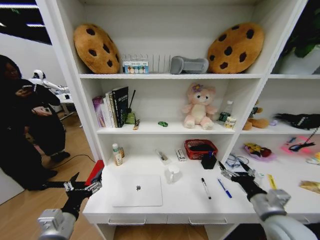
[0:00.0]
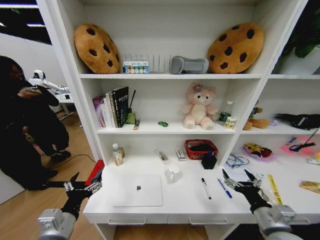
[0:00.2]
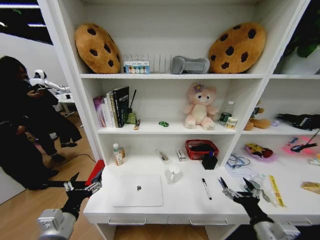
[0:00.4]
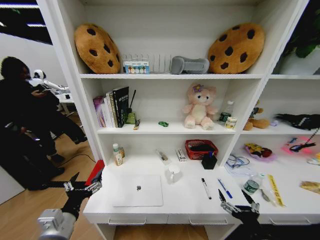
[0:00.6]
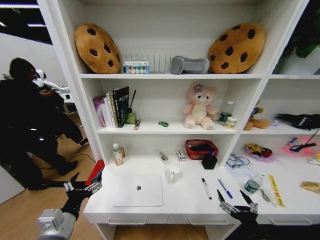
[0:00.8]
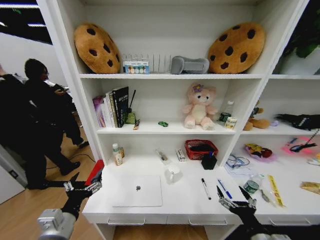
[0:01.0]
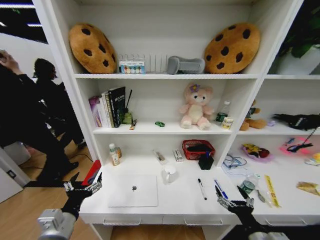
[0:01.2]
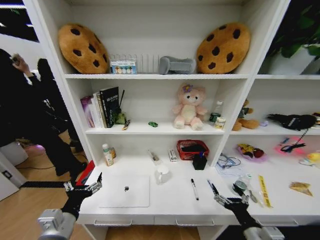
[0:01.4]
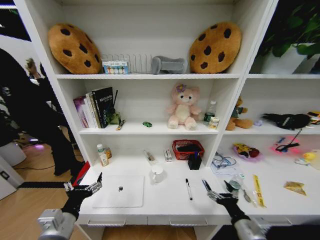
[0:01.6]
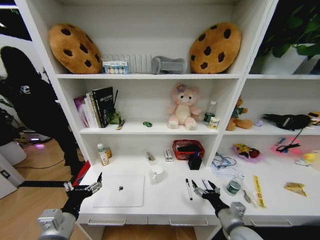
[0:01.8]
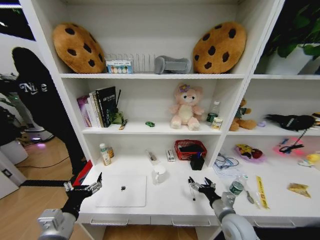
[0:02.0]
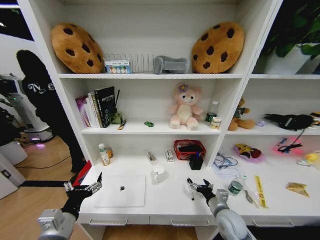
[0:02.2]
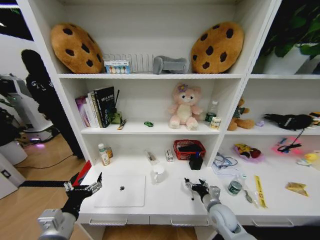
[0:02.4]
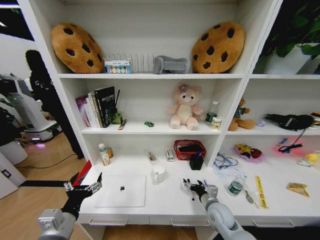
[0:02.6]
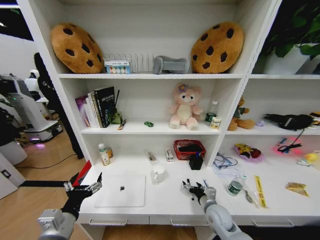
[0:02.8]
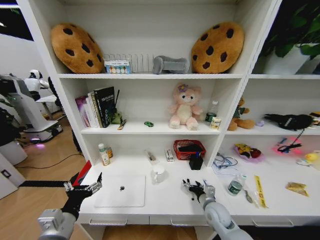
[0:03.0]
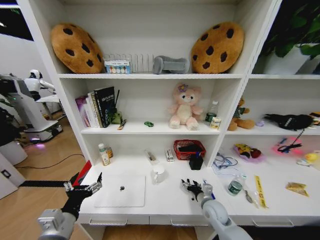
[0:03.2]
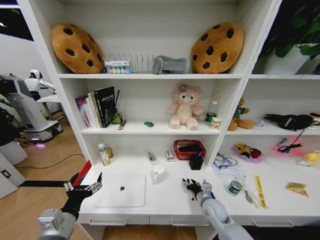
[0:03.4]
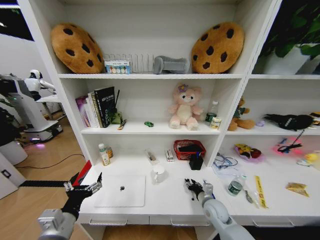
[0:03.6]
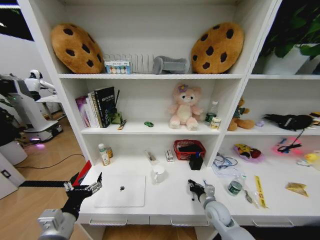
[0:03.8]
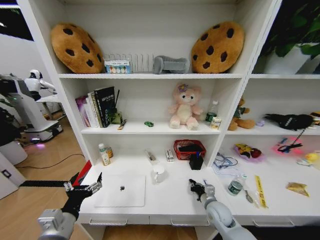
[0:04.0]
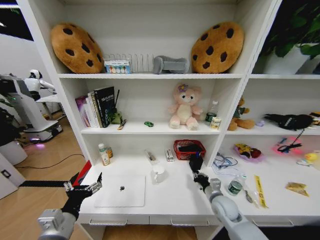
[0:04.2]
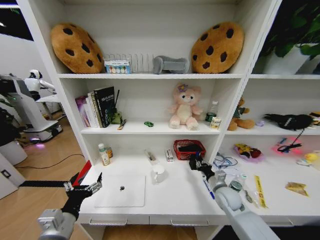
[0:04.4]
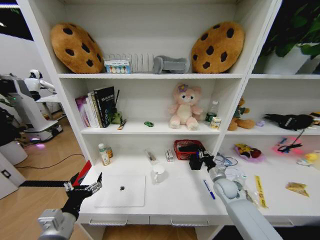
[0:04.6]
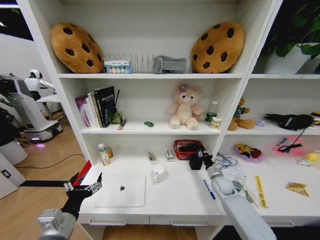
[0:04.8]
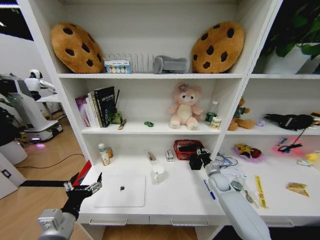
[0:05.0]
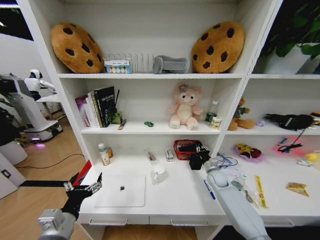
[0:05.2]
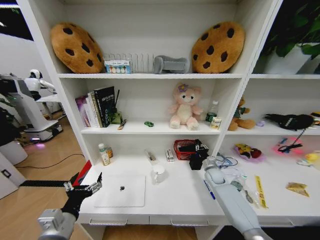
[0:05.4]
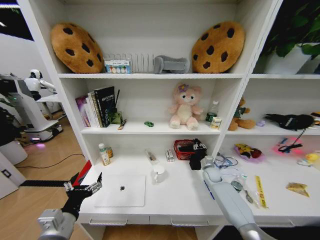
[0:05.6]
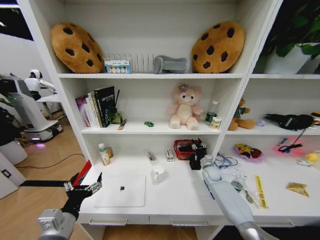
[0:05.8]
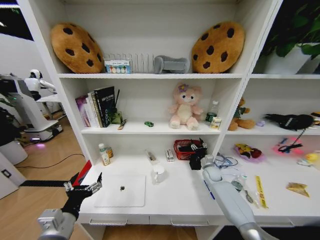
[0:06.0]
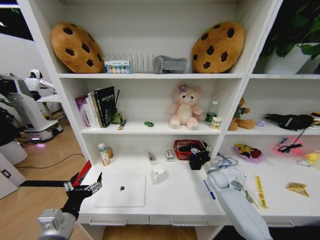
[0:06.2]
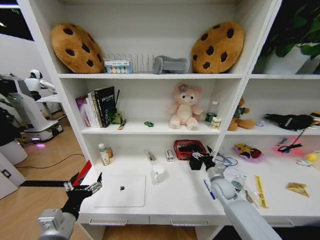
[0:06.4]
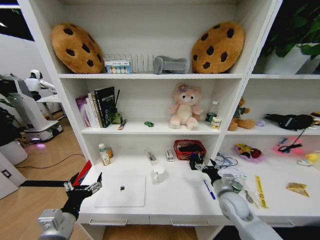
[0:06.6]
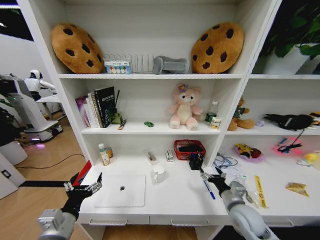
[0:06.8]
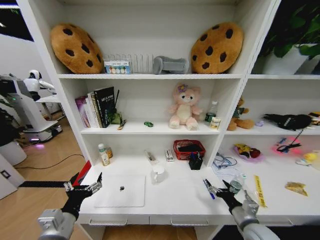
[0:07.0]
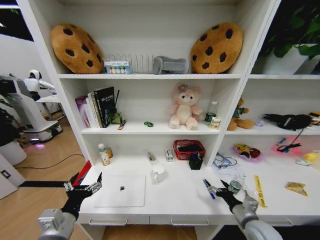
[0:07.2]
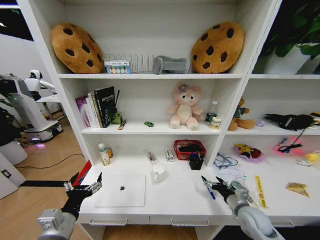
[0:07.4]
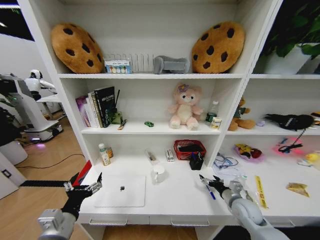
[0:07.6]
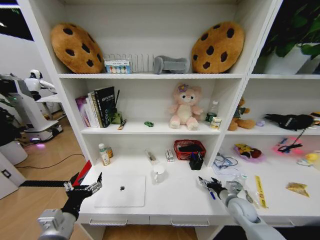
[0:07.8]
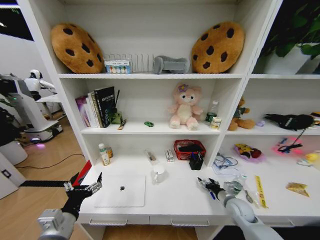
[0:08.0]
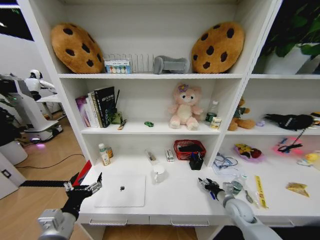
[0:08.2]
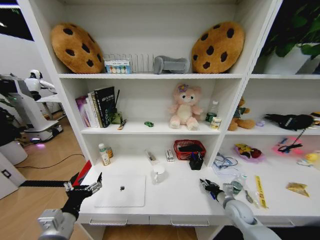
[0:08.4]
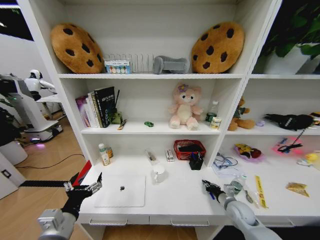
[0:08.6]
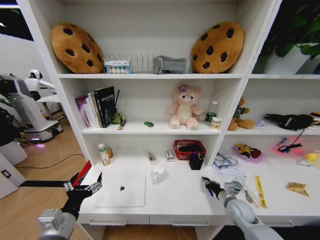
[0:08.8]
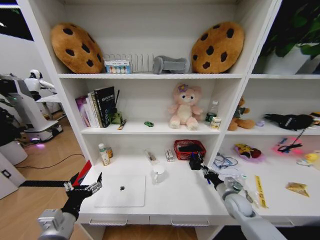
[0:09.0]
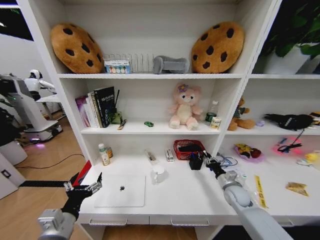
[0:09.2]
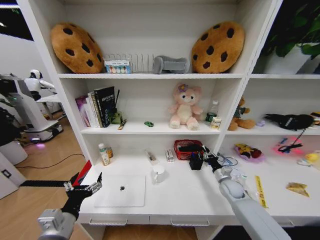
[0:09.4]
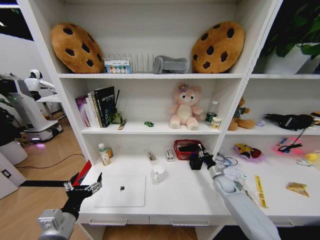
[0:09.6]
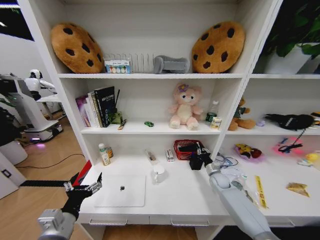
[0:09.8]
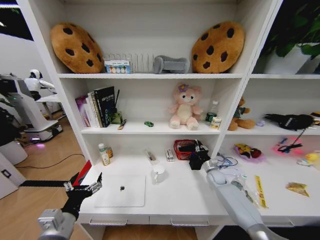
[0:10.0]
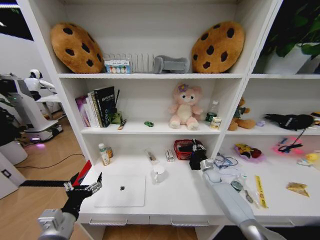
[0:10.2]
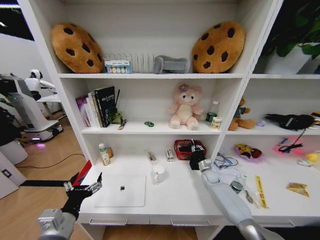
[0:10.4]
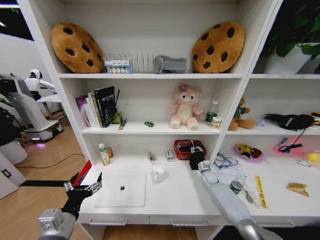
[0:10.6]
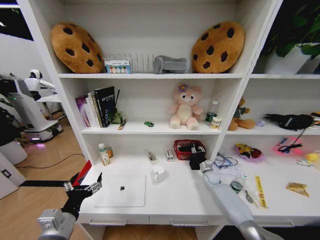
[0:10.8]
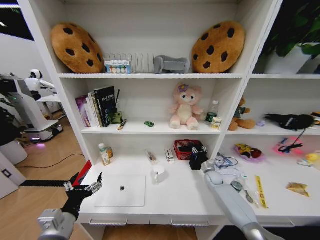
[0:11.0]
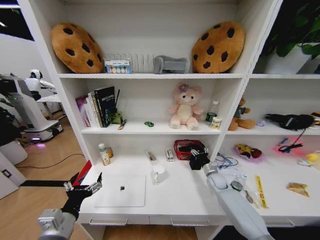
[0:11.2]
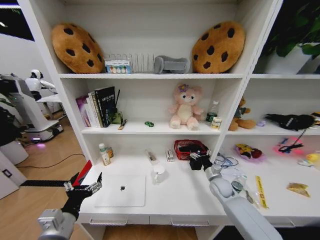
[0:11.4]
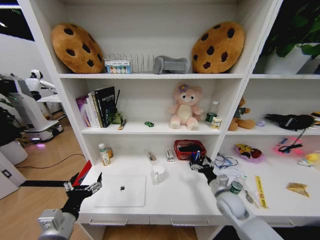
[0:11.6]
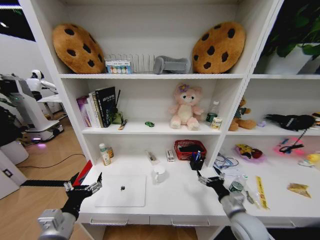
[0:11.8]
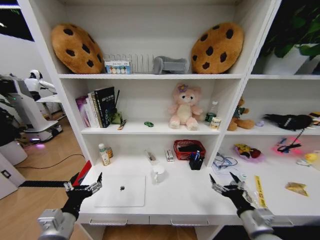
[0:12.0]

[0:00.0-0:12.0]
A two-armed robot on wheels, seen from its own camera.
Task of the whole recording: Organize the objects on the table.
0:00.0 to 0:01.6: The right gripper moves downward and backward, about 10 cm.
0:01.6 to 0:03.0: The right gripper is displaced forward and downward by about 15 cm.
0:03.0 to 0:04.4: The right gripper shifts about 10 cm to the right and forward, and closes its fingers.
0:04.4 to 0:06.0: The right gripper shifts roughly 15 cm forward, and opens its fingers.
0:06.0 to 0:07.6: The right gripper shifts approximately 20 cm backward, and opens up.
0:07.6 to 0:09.0: The right gripper closes its fingers.
0:09.0 to 0:10.4: The right gripper is displaced forward by about 15 cm.
0:10.4 to 0:12.0: The right gripper goes roughly 35 cm backward and upward, and opens up.

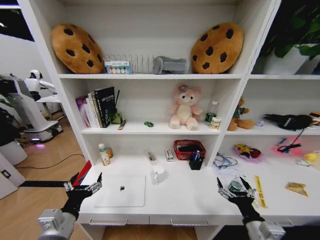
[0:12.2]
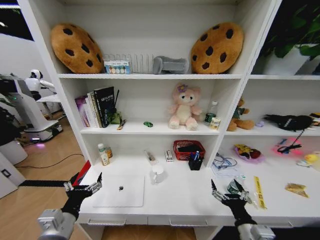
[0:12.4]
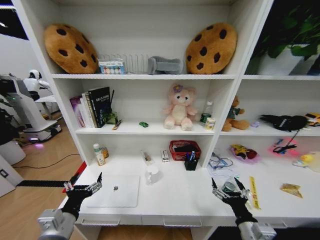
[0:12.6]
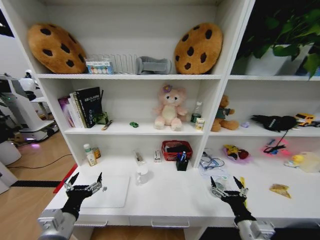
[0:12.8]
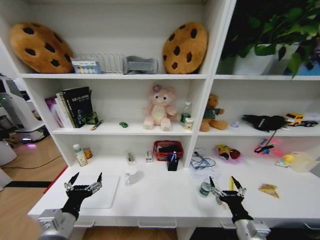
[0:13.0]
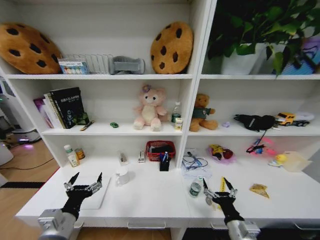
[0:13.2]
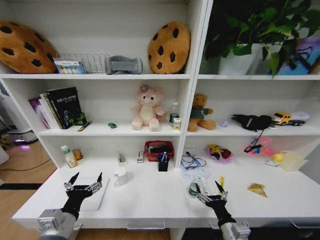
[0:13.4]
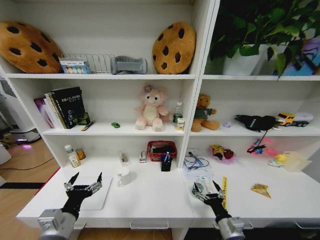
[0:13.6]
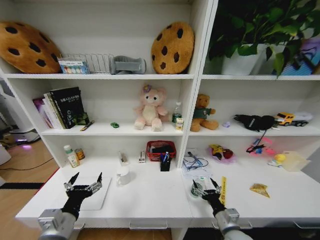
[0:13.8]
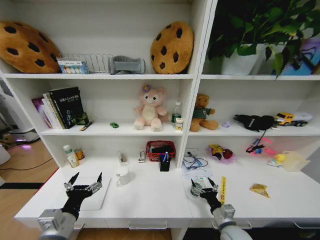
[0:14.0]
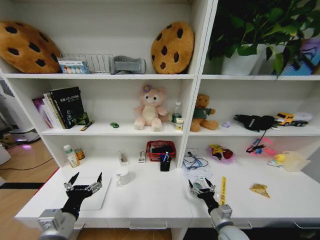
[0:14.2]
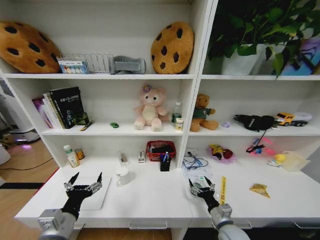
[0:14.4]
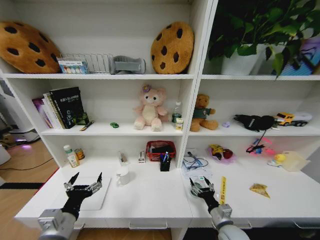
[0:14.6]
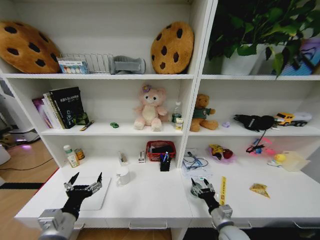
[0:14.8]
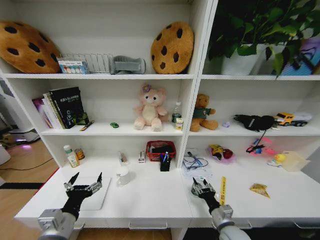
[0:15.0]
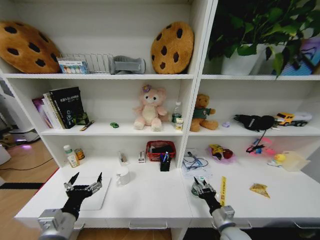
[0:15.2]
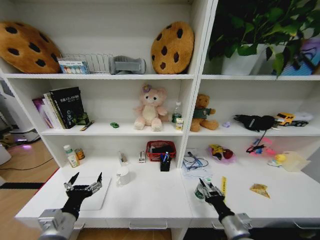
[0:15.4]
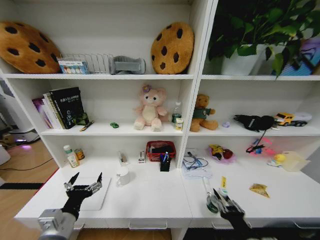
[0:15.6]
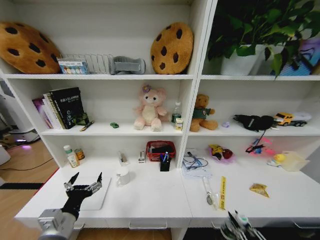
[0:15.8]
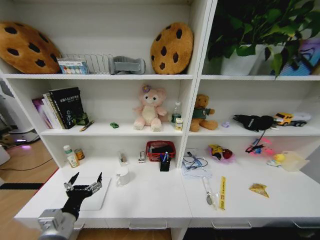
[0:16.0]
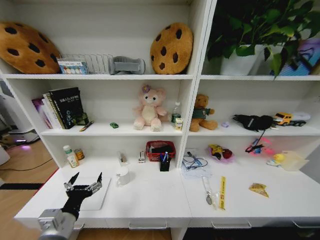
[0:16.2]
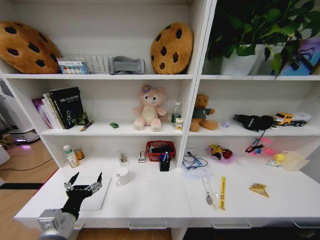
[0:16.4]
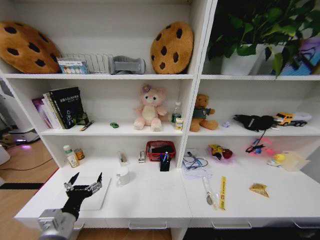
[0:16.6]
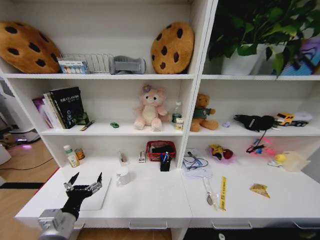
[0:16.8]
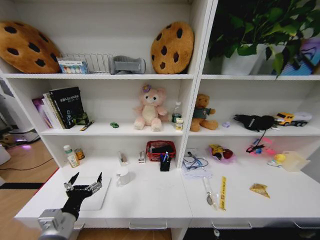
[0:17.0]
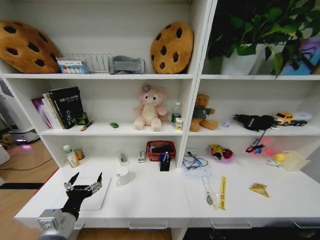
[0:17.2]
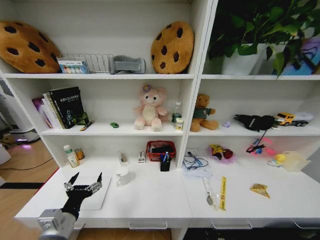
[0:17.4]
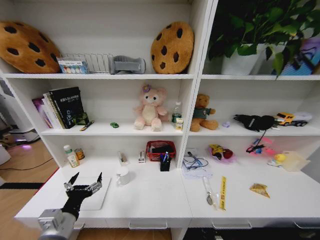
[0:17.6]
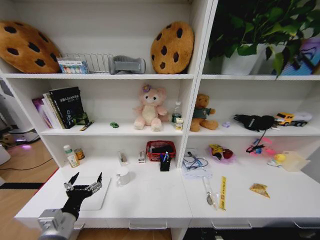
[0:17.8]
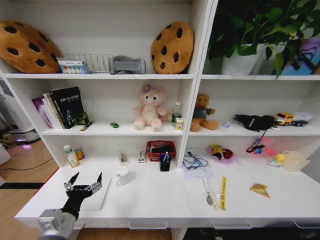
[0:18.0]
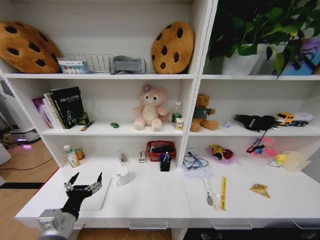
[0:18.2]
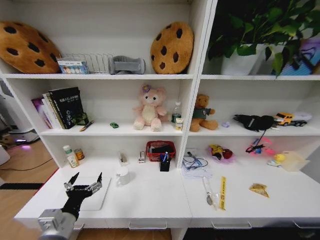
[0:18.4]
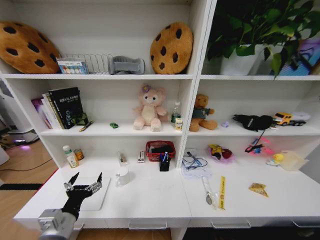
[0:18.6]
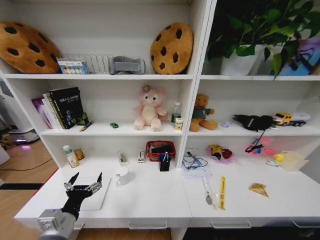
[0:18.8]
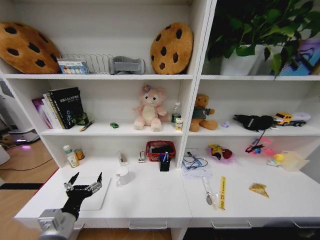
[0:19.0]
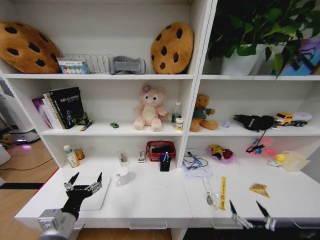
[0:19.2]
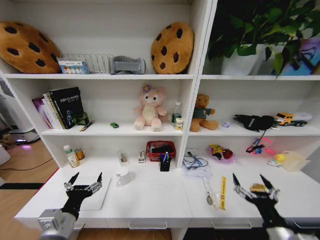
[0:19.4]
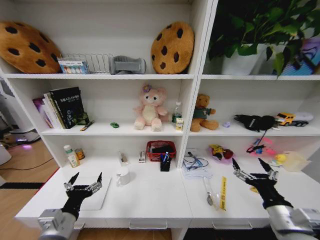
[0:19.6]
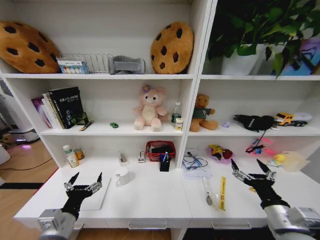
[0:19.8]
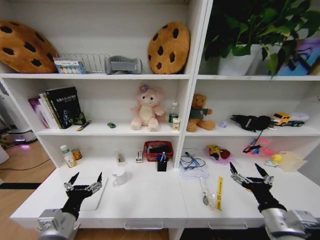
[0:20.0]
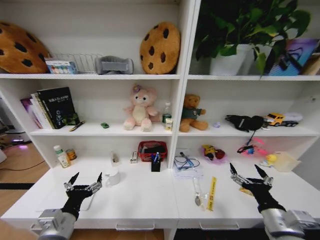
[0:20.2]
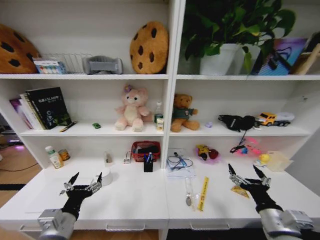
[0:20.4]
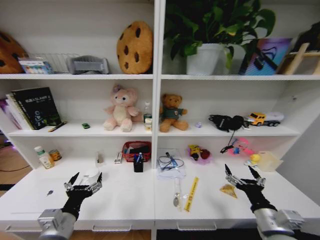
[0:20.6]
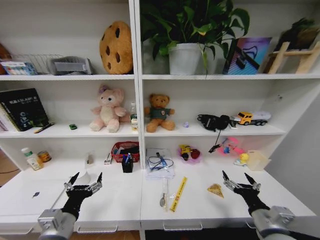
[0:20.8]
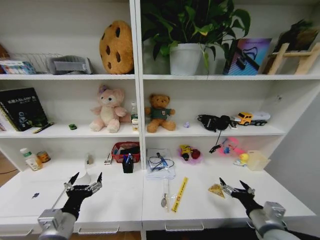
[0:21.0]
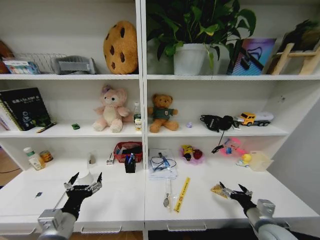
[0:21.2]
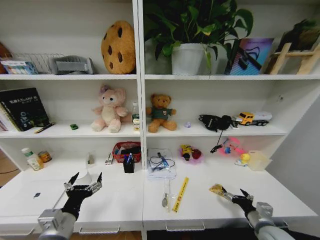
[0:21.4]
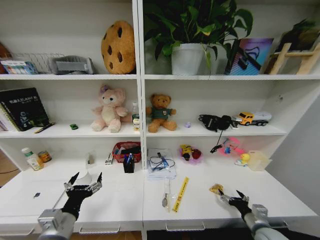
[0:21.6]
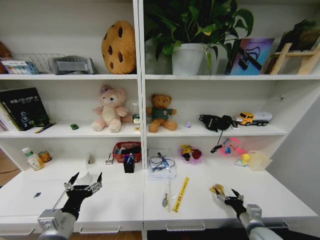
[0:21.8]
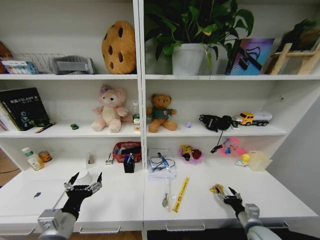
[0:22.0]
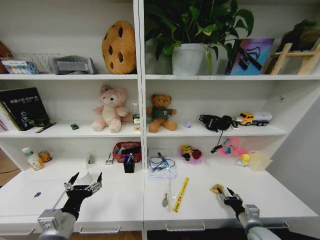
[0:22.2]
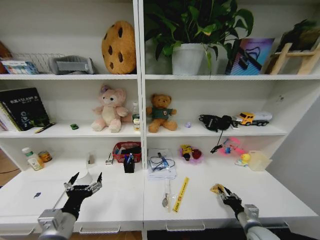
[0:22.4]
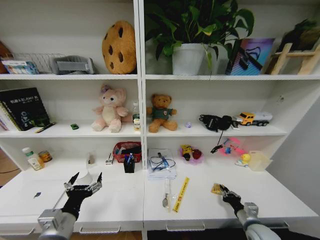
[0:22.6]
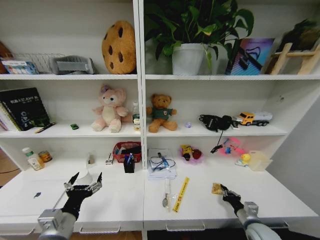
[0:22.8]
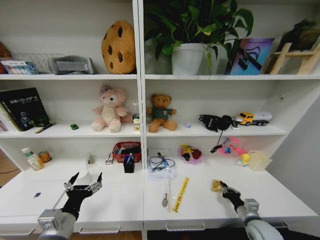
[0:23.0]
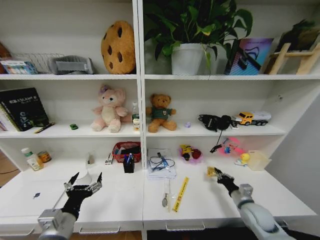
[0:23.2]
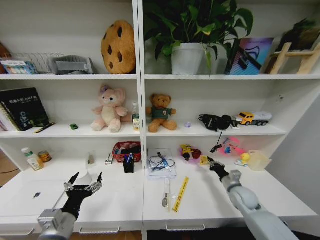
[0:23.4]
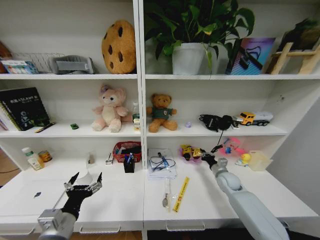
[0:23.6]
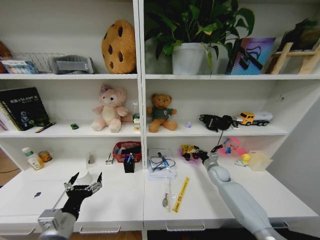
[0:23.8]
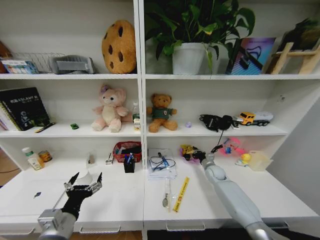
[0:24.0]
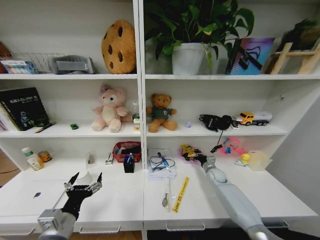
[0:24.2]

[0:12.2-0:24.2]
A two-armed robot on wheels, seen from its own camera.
Task of the whole recording: Organize the objects on the table.
0:12.2 to 0:13.8: The right gripper goes about 5 cm downward.
0:13.8 to 0:15.2: The right gripper closes its fingers.
0:15.2 to 0:16.6: The right gripper is displaced downward, backward and to the right by about 35 cm.
0:16.6 to 0:18.2: The right gripper shifts roughly 15 cm forward and downward, and opens its fingers.
0:18.2 to 0:19.8: The right gripper goes about 50 cm upward.
0:19.8 to 0:21.2: The right gripper is displaced downward by some 10 cm.
0:21.2 to 0:22.6: The right gripper goes about 10 cm downward, and closes up.
0:22.6 to 0:24.2: The right gripper travels forward by about 25 cm.
